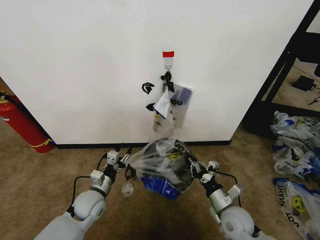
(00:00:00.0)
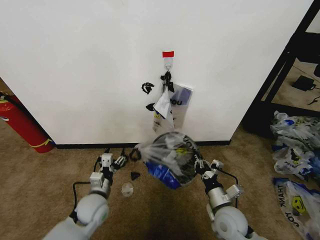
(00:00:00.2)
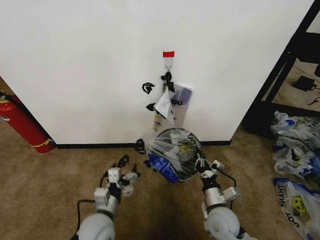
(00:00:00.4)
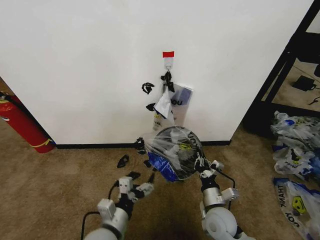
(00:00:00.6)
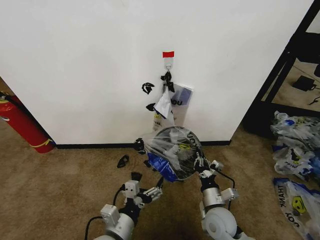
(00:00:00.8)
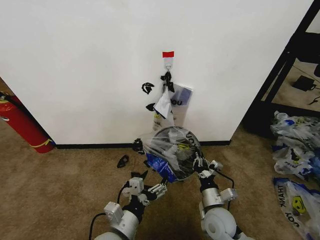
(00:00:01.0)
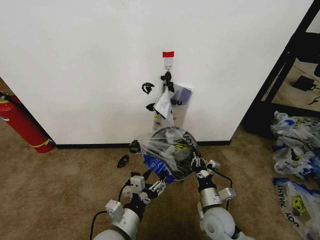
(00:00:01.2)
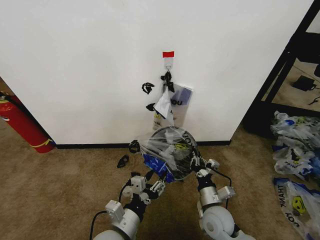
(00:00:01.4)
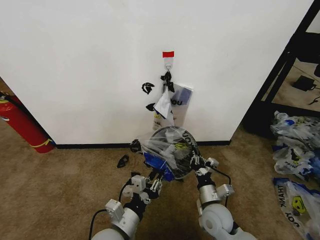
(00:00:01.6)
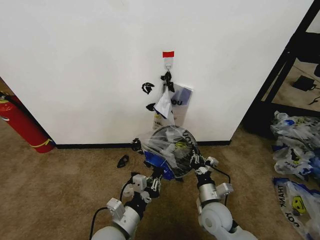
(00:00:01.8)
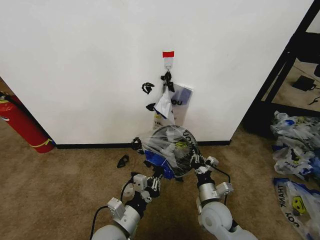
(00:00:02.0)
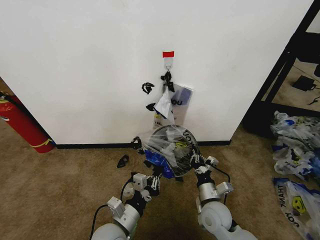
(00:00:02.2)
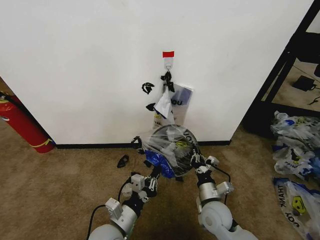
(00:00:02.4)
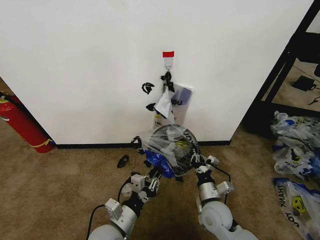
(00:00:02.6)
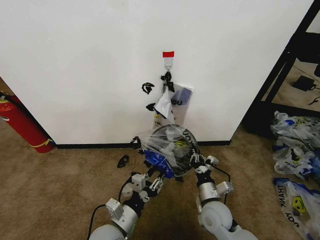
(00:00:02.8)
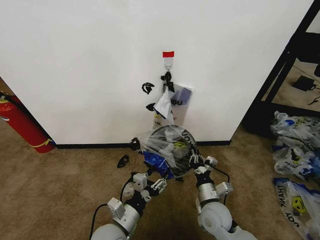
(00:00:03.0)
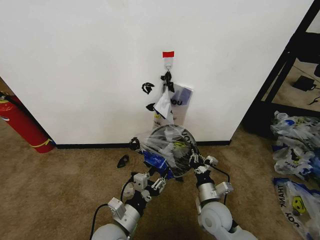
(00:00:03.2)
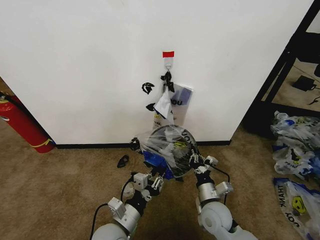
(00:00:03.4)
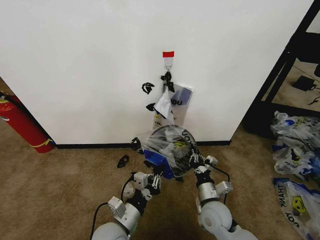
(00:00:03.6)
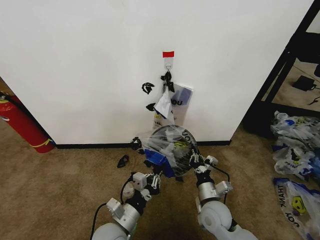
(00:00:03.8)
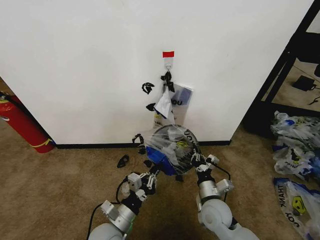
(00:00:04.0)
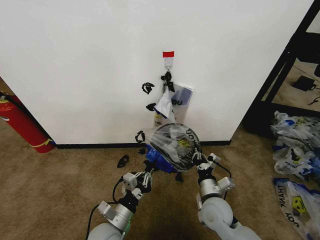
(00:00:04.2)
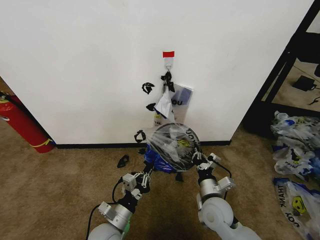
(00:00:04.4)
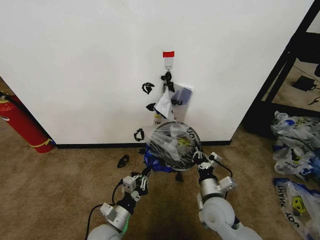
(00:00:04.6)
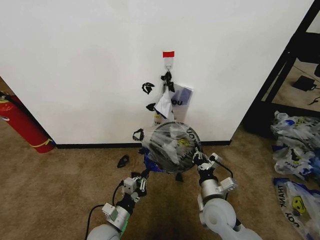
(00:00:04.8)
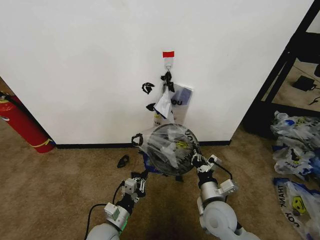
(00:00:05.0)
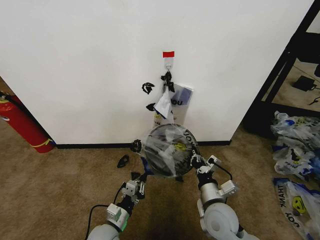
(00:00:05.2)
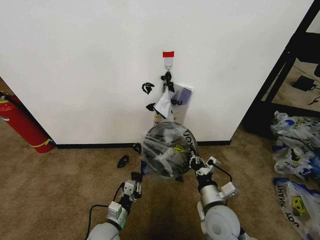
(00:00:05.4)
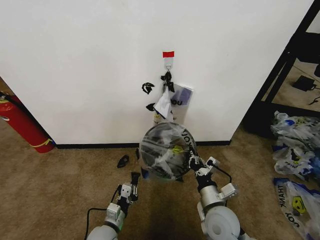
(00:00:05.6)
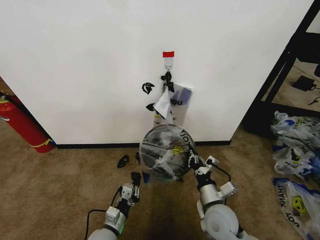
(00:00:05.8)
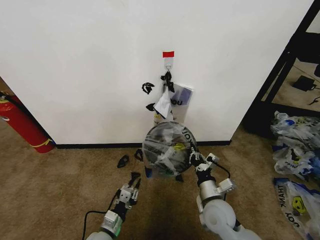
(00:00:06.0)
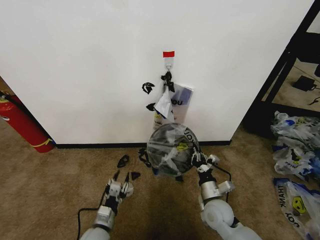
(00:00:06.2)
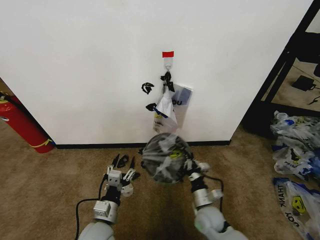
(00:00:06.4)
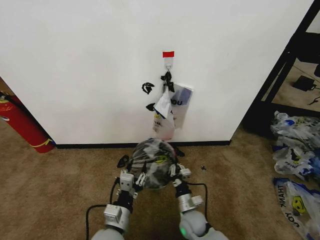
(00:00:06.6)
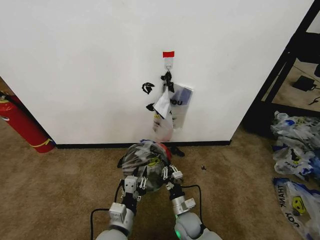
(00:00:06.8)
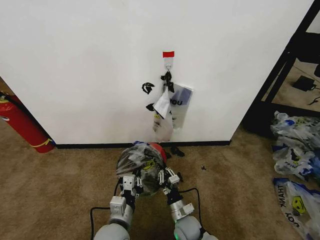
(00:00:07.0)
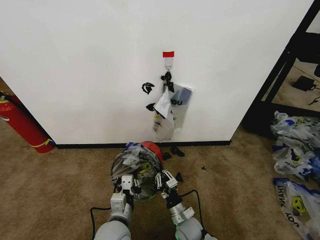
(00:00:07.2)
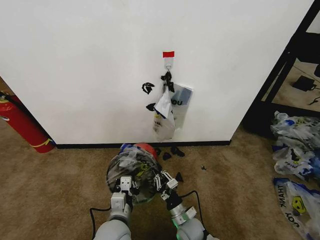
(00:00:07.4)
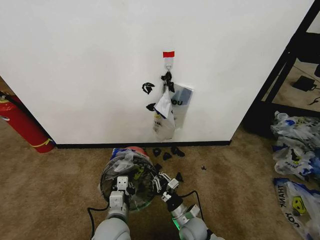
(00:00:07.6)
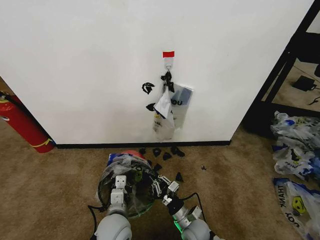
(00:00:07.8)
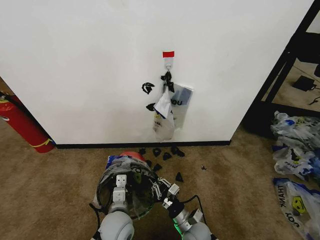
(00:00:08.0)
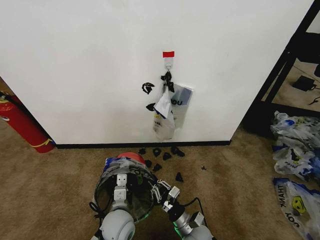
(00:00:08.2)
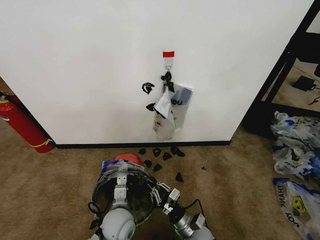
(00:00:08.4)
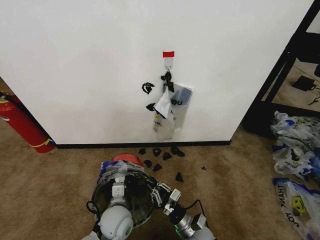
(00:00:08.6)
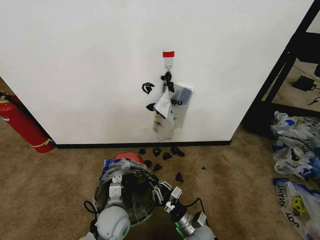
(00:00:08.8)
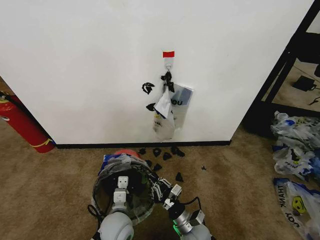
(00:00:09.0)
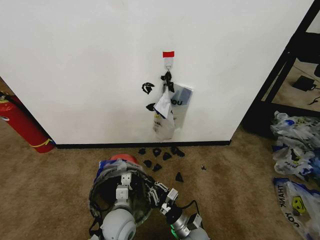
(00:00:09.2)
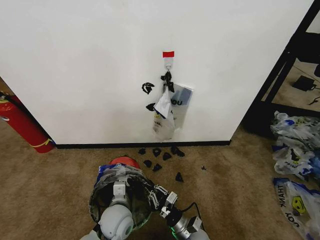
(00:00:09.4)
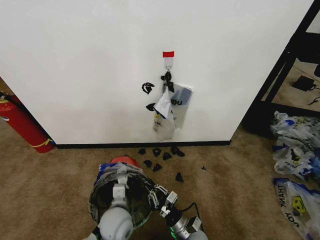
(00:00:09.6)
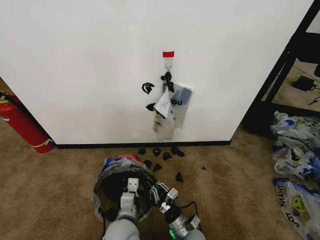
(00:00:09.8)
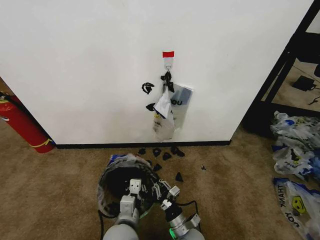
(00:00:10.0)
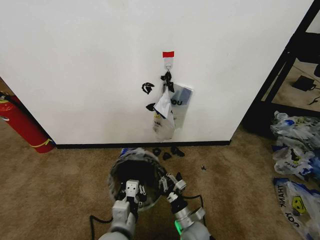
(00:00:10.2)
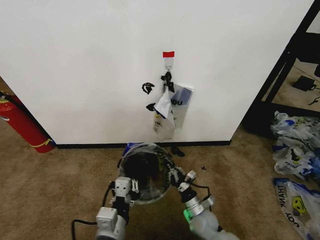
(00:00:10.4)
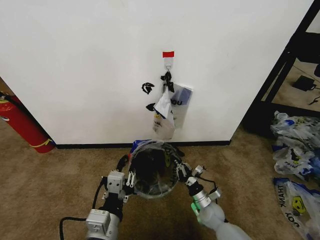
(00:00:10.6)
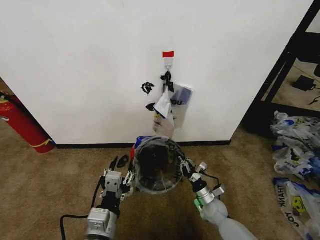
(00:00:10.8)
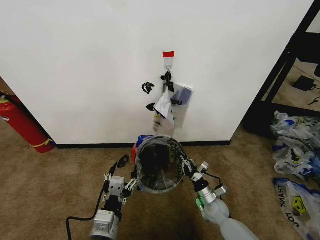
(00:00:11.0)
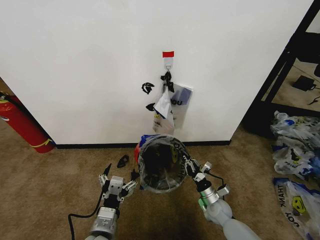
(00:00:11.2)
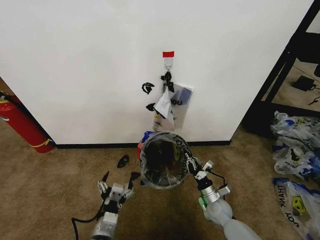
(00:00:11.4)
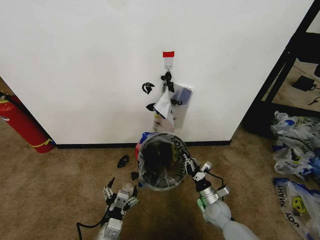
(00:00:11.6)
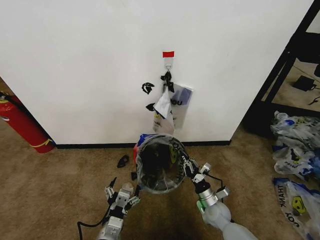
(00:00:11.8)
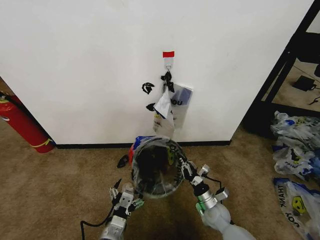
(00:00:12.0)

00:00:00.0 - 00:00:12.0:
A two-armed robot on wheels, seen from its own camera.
Task of the whole recording: Pick up the garbage bag from the wall and place it over the trash bin.
00:00:00.0 - 00:00:01.6: The right gripper travels to the left by about 5 cm. The left gripper is displaced backward, to the right and upward by some 20 cm, and opens and closes again.
00:00:01.6 - 00:00:03.0: There are only small adjustments of the grippers.
00:00:03.0 - 00:00:04.4: The left gripper changes place by roughly 5 cm, and closes up.
00:00:04.4 - 00:00:06.0: The left gripper moves downward, some 5 cm.
00:00:06.0 - 00:00:07.6: The right gripper shifts about 15 cm downward and to the left. Meanwhile the left gripper goes about 15 cm upward and to the right, and opens and closes again.
00:00:07.6 - 00:00:09.0: There are only small adjustments of the grippers.
00:00:09.0 - 00:00:10.4: The right gripper ends up some 5 cm from where it was. Meanwhile the left gripper moves upward and backward, approximately 15 cm.
00:00:10.4 - 00:00:12.0: The right gripper goes approximately 5 cm to the right. The left gripper shifts about 10 cm downward, and opens up.

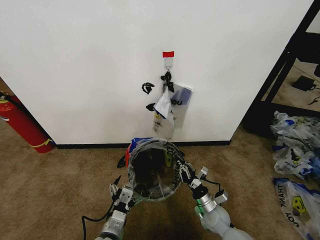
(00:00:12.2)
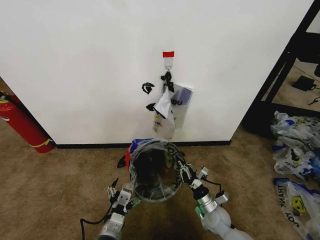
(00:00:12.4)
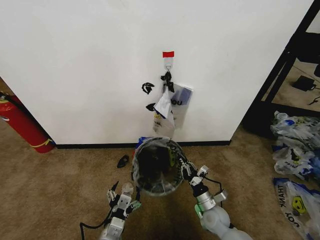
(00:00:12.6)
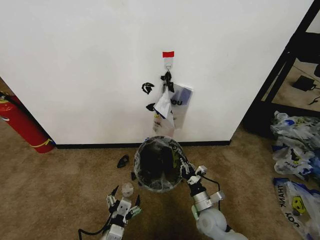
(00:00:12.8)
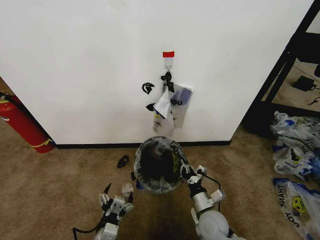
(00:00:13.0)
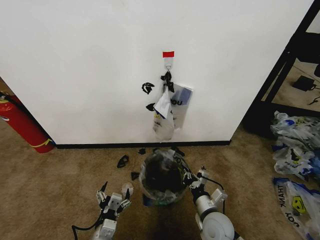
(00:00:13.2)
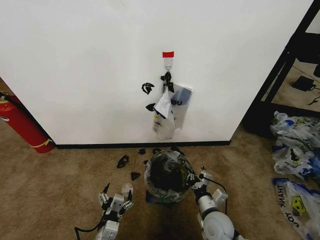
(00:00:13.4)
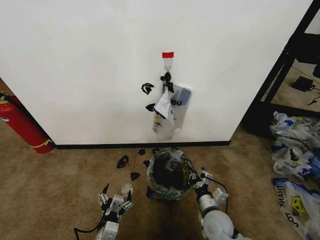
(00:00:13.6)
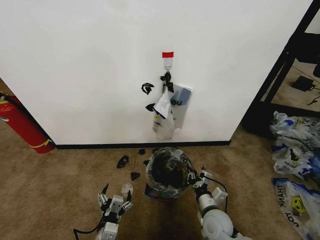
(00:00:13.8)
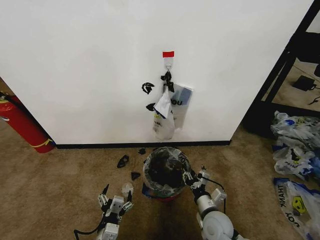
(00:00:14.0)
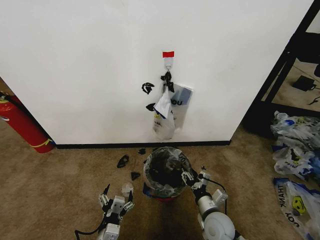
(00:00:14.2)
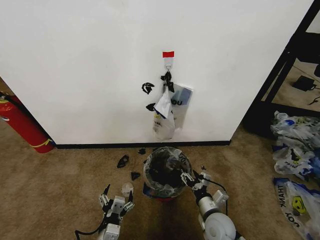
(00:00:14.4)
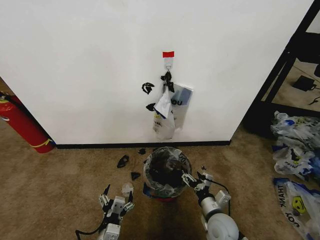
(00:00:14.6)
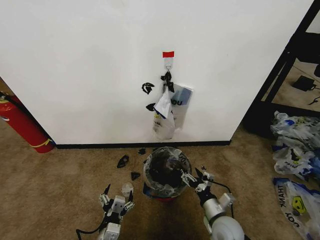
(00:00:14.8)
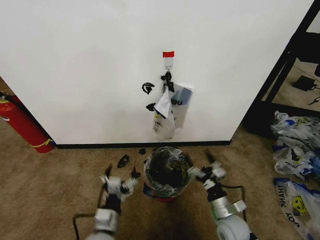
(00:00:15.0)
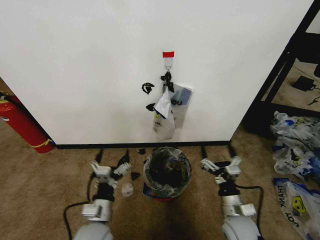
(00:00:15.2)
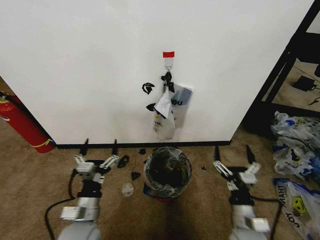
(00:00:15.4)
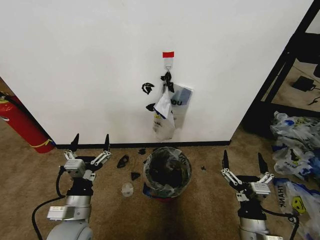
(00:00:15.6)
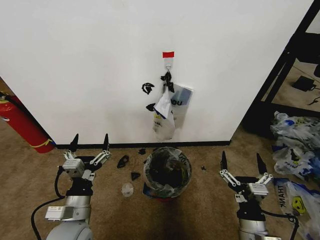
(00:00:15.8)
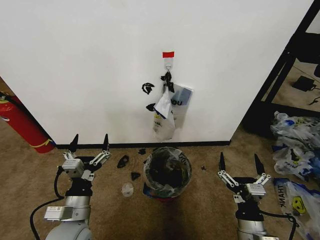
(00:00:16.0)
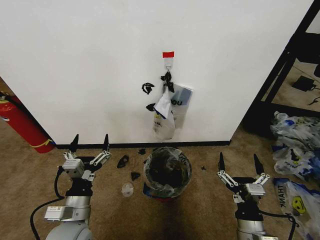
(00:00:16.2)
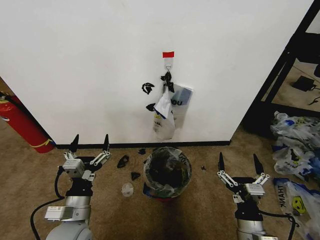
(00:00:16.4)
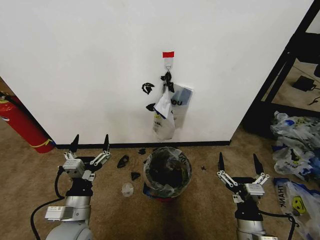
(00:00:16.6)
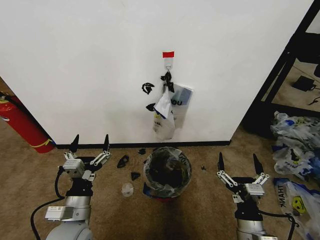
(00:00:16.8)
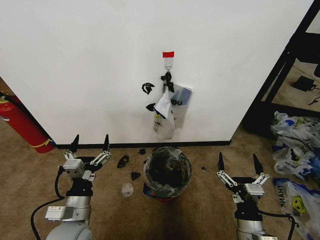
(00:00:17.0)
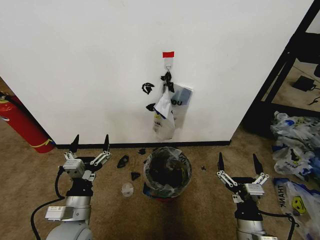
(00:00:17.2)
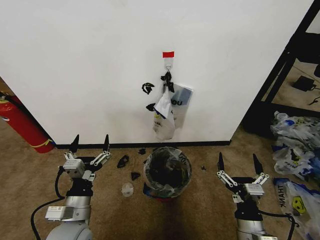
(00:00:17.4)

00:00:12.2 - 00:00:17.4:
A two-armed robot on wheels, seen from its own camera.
Task of the whole recording: Pick up the garbage bag from the wall and place it over the trash bin.
00:00:12.2 - 00:00:14.0: The right gripper heads upward, covering roughly 5 cm, and opens.
00:00:14.0 - 00:00:15.6: The right gripper goes approximately 15 cm backward, upward and to the right, and opens its fingers, while the left gripper travels upward, forward and to the left by some 15 cm.
00:00:15.6 - 00:00:17.4: Both grippers stay put.
